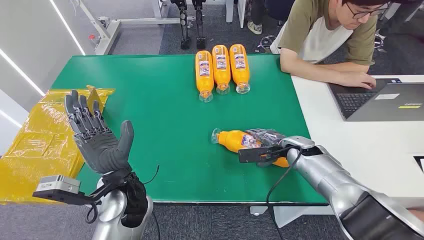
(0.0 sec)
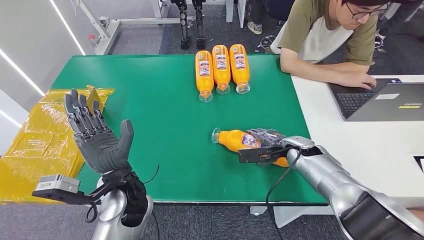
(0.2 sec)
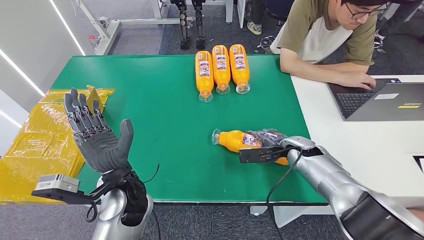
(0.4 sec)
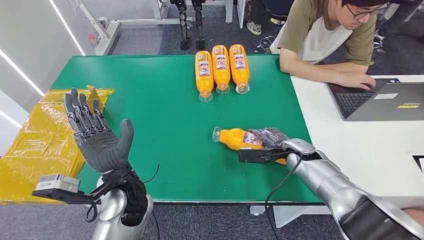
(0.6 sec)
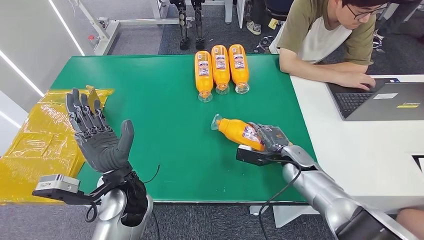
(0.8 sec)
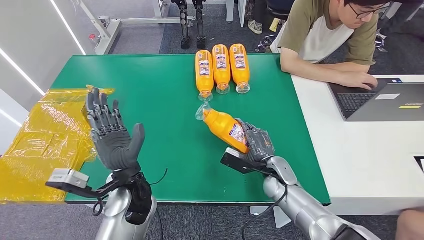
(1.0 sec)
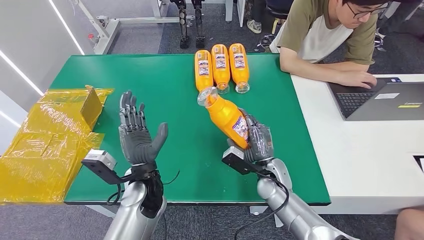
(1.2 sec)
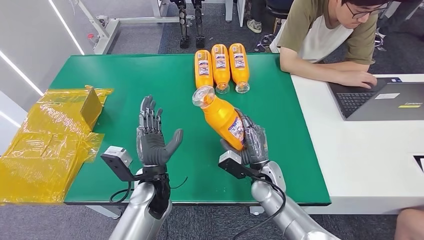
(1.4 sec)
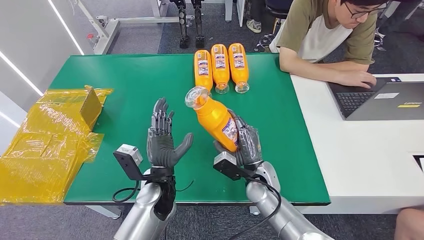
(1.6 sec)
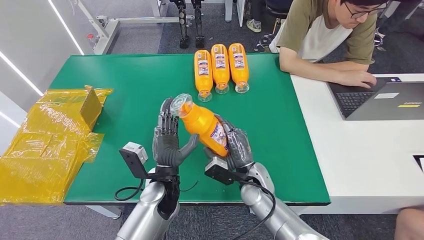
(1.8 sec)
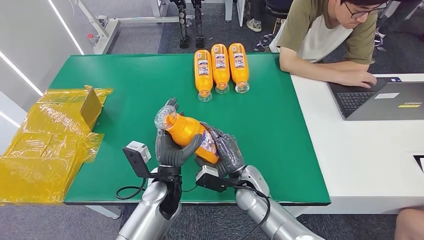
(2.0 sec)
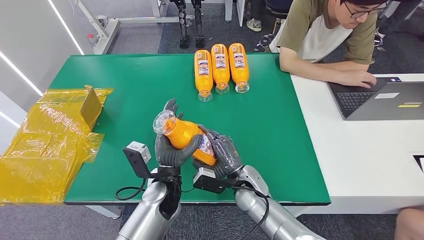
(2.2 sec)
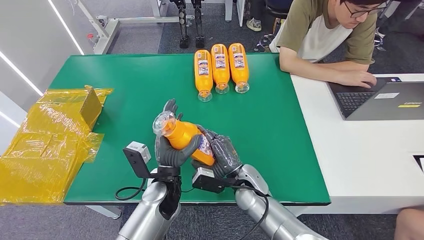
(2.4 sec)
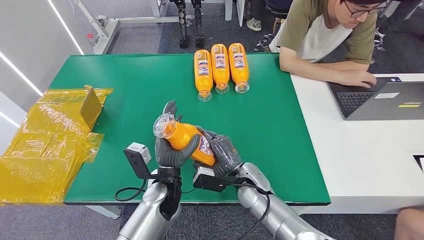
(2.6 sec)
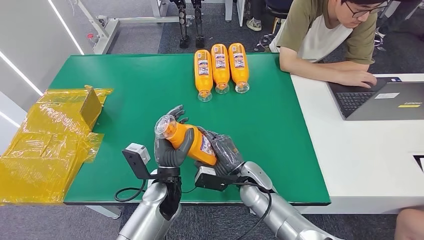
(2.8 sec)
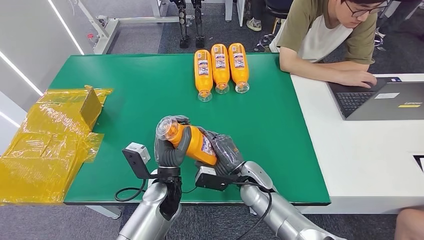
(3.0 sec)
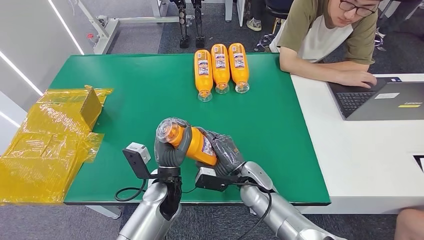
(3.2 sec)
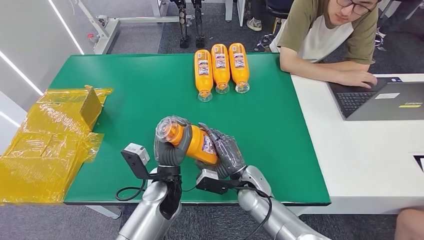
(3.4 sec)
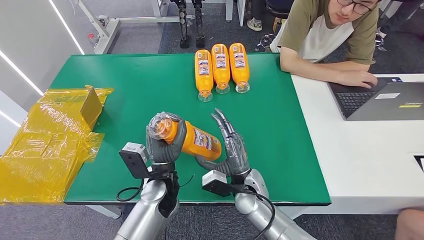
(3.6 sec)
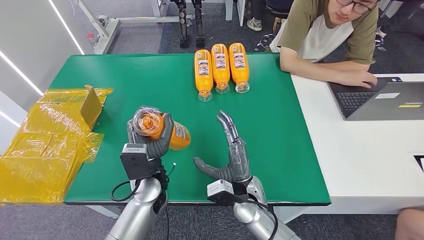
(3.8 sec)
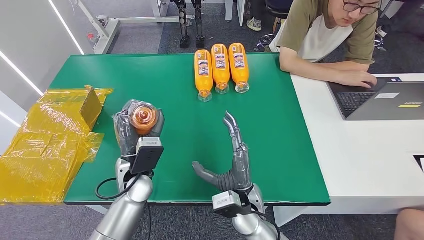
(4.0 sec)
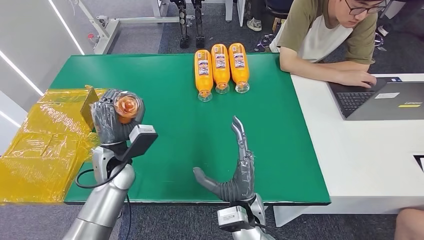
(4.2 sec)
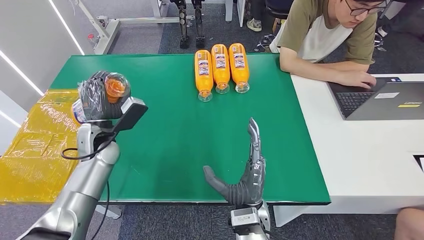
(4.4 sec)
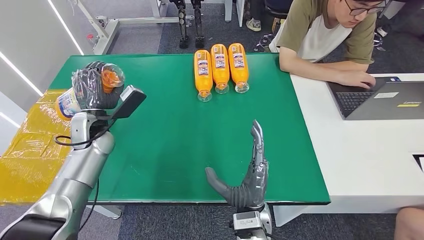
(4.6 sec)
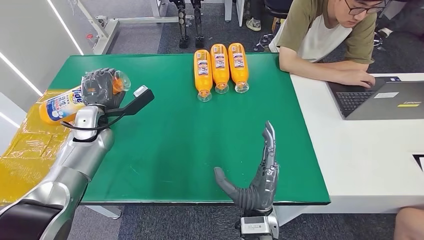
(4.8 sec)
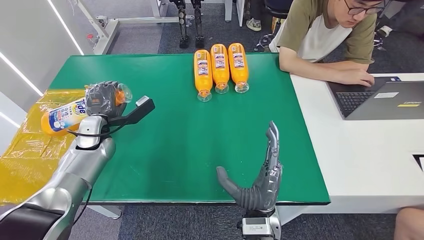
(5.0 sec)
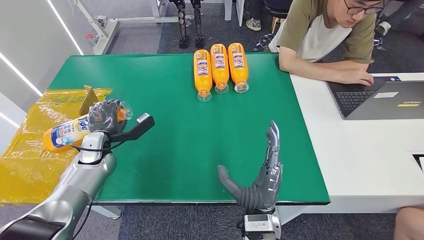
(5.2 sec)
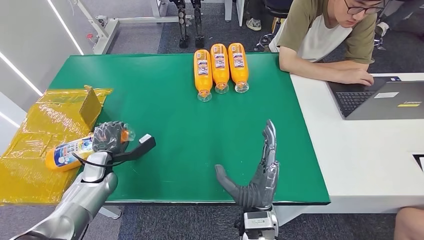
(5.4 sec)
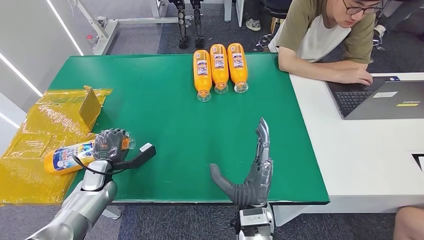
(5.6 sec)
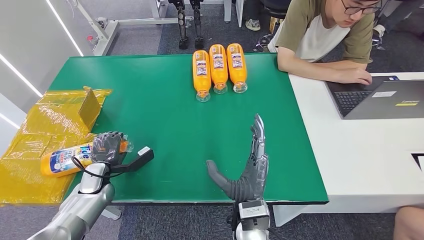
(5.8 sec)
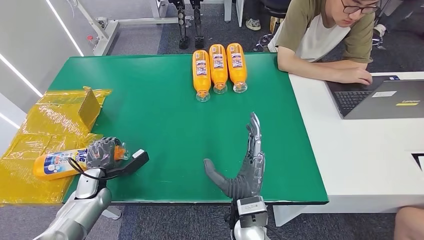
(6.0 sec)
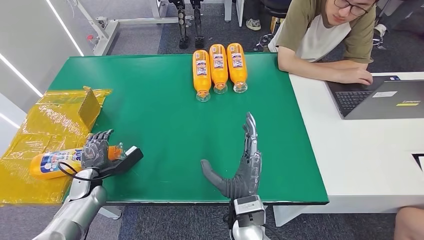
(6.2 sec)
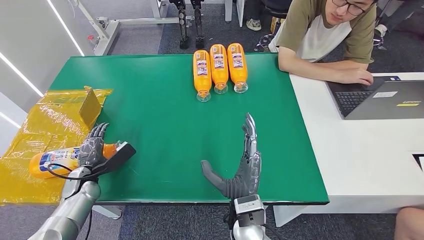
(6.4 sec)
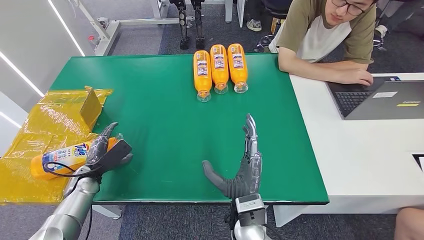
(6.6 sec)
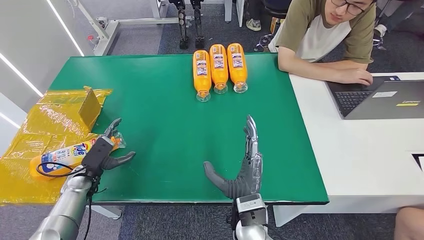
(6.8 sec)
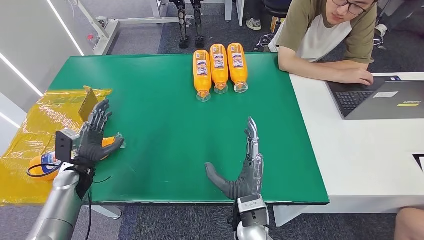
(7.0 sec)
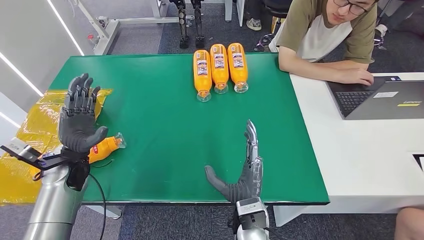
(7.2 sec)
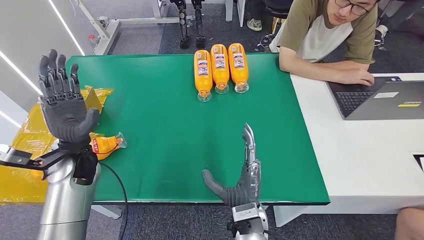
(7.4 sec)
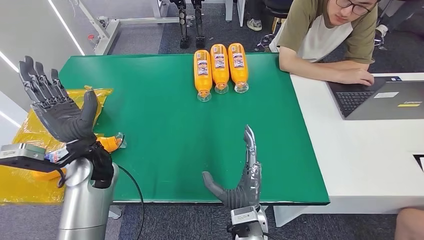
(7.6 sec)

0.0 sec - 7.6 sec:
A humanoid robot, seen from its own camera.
Step, 0.0 sec - 2.0 sec: Pick up the bottle from the table.
Step, 2.2 sec - 7.6 sec: Turn the bottle to the front side.
3.0 sec - 4.6 sec: The right hand is displaced backward by roughly 10 cm, while the left hand moves to the left, forward and upward, approximately 25 cm.
4.6 sec - 6.0 sec: The left hand travels downward, backward and to the left by roughly 20 cm.
6.0 sec - 7.6 sec: The left hand is displaced upward and to the right by some 20 cm.
